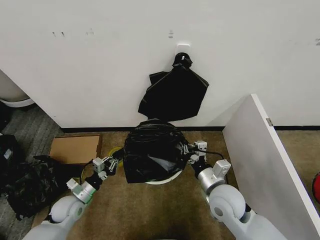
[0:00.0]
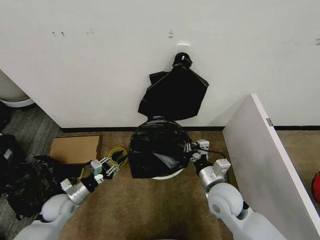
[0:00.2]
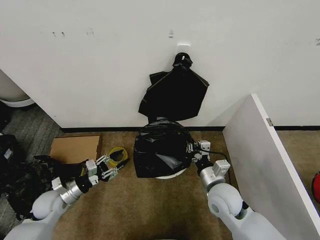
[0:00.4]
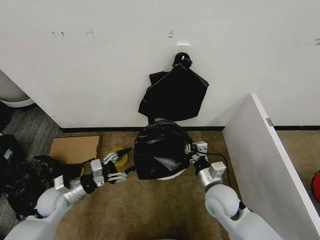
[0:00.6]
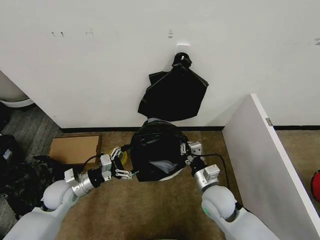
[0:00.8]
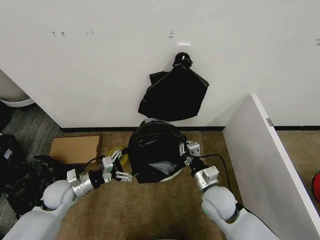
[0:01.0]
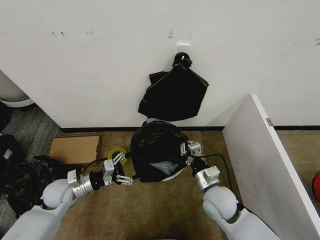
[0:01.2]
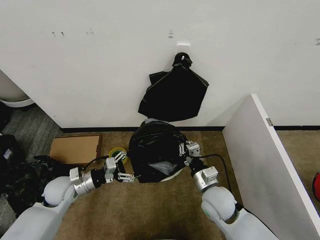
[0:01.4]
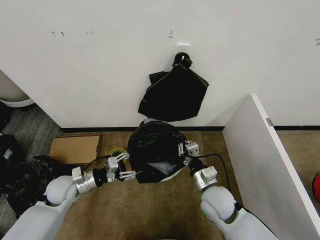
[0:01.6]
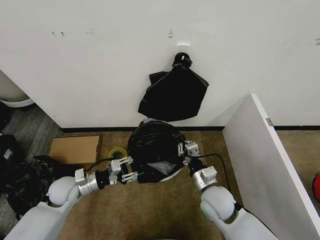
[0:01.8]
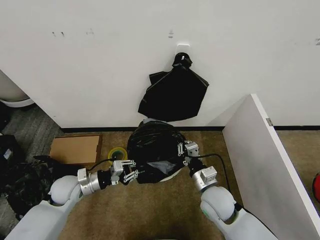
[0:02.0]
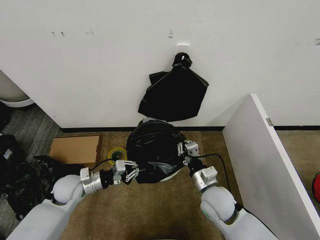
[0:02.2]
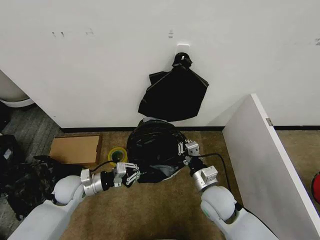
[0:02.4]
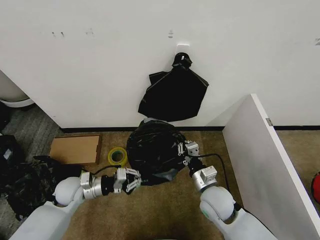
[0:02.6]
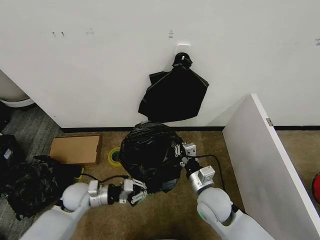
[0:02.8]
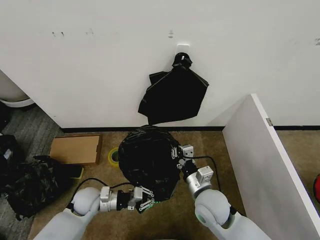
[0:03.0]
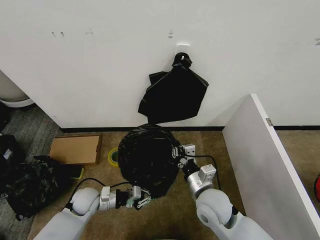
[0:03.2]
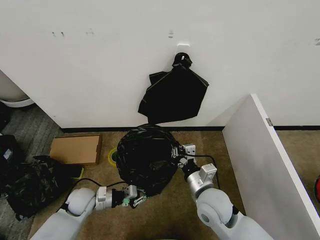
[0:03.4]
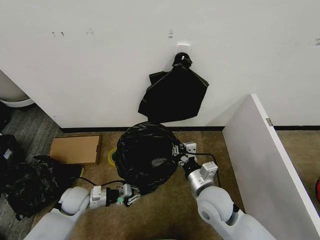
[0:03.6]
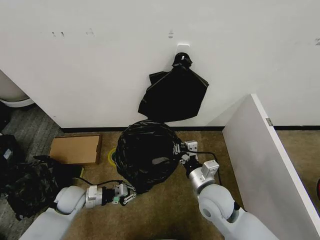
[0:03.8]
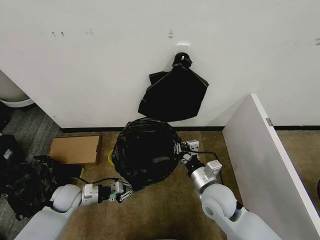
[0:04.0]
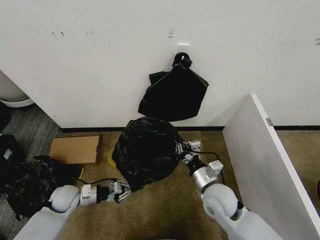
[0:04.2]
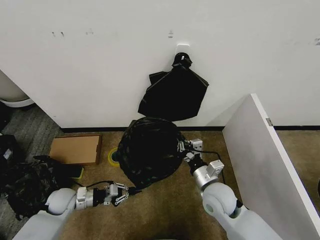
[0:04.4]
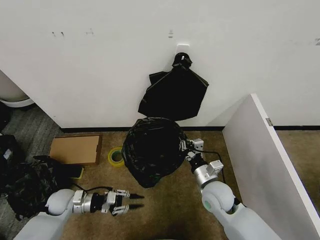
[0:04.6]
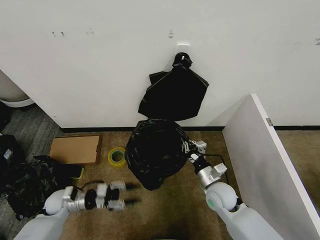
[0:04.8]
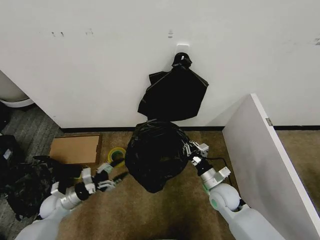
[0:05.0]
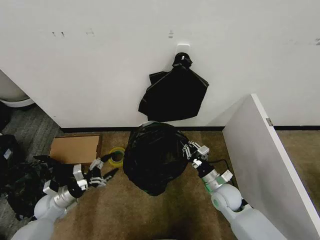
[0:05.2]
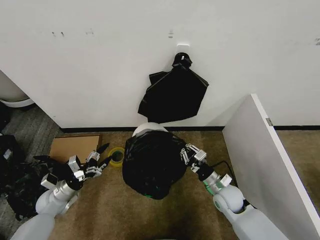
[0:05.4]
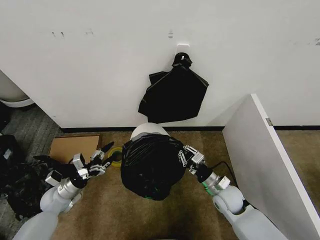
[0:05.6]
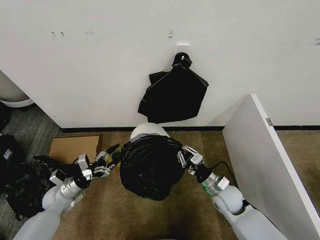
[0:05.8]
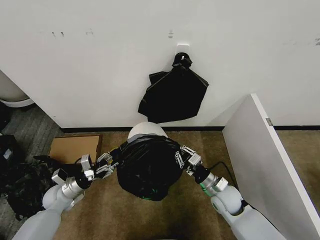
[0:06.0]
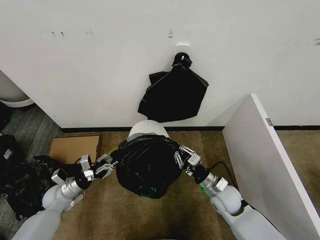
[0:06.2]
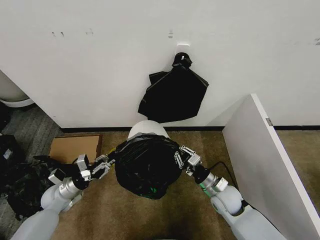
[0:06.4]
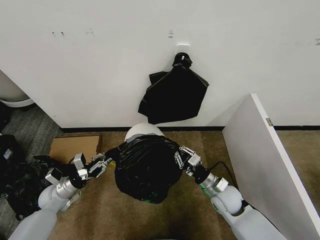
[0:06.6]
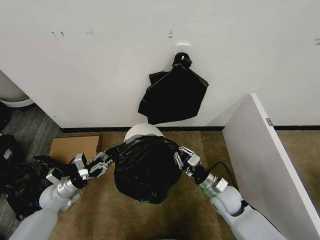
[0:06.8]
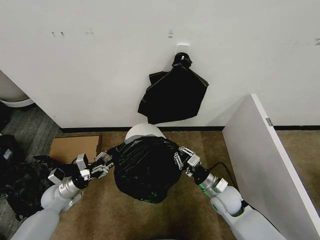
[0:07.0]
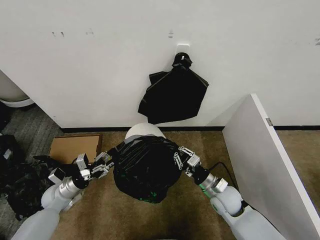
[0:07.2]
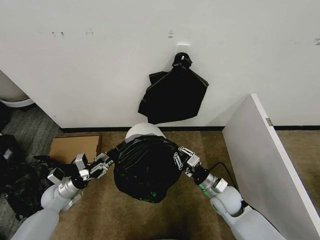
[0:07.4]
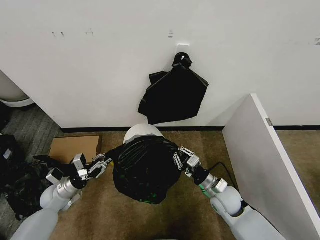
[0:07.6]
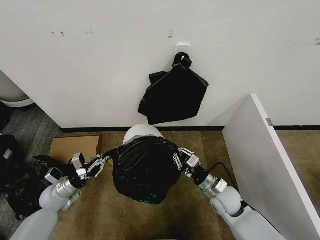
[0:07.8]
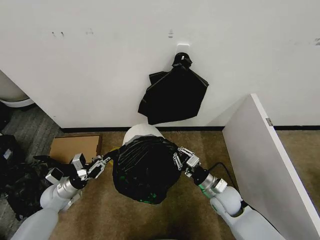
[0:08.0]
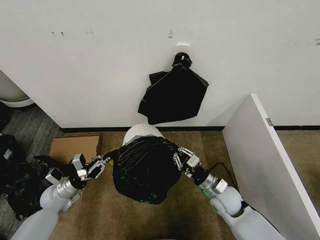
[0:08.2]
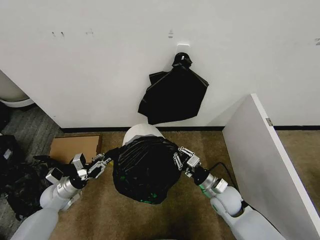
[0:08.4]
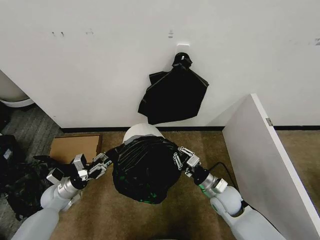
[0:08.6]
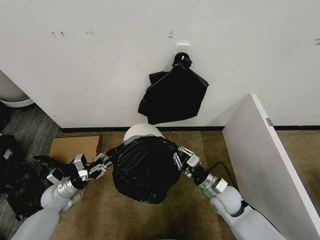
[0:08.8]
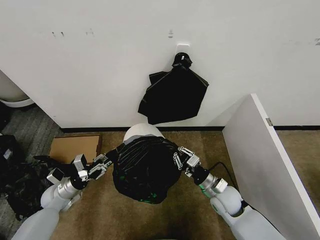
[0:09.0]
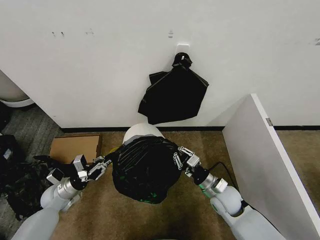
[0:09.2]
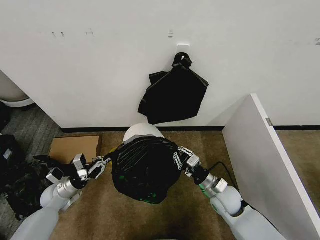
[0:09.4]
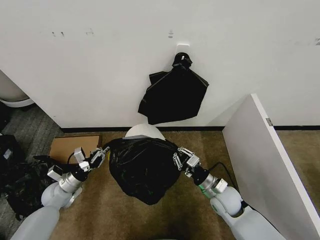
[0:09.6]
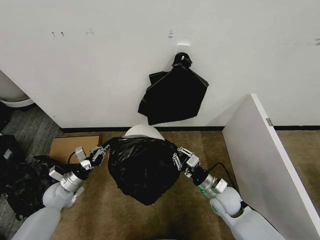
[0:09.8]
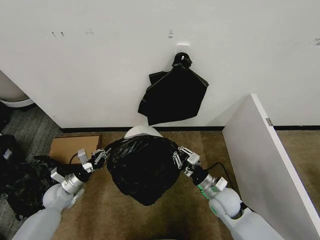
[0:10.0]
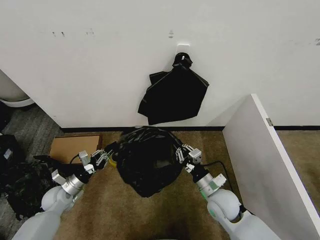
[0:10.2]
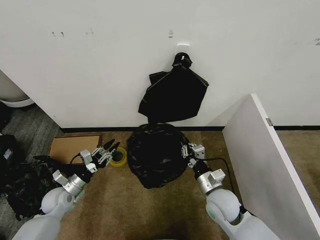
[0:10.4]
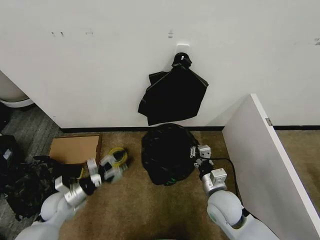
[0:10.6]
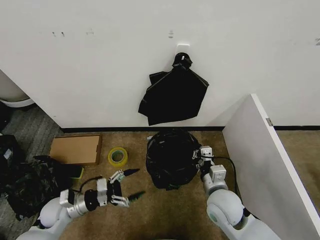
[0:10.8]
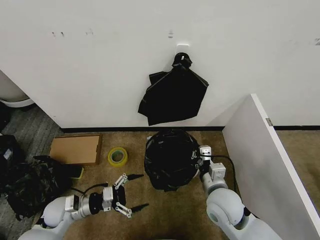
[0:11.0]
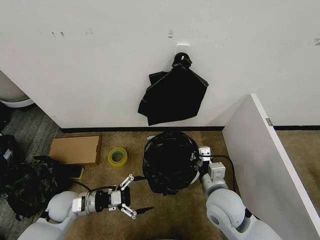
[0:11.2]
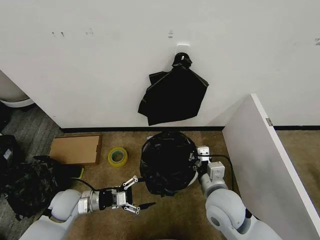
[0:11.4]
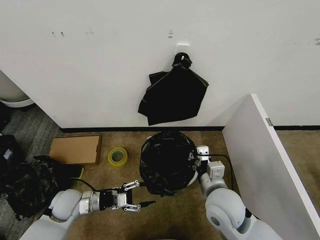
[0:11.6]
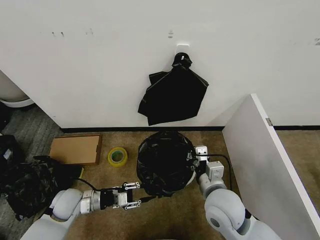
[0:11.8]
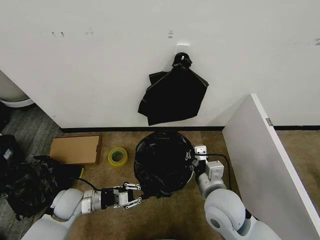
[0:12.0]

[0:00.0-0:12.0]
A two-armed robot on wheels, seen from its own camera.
Task of the whole recording: Place the garbage bag over the trash bin.
0:00.0 to 0:01.6: The left gripper goes roughly 10 cm upward, and opens its fingers.
0:01.6 to 0:03.0: The left gripper heads downward and to the right, covering roughly 10 cm, and closes its fingers.
0:03.0 to 0:04.4: The left gripper heads to the left, covering approximately 10 cm.
0:04.4 to 0:06.0: The left gripper opens up. The right gripper travels downward and to the right by roughly 10 cm.
0:06.0 to 0:07.6: The left gripper closes up.
0:07.6 to 0:09.0: Neither gripper changes place.
0:09.0 to 0:10.4: The right gripper changes place by about 5 cm.
0:10.4 to 0:12.0: The right gripper shifts some 10 cm upward. Meanwhile the left gripper travels to the right by some 5 cm, and opens and closes again.

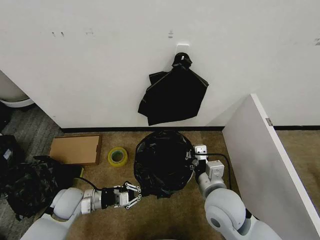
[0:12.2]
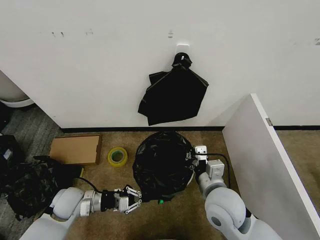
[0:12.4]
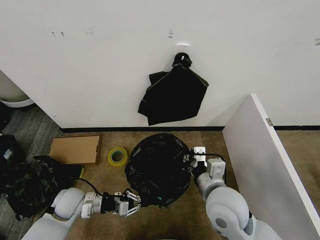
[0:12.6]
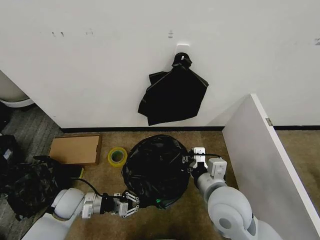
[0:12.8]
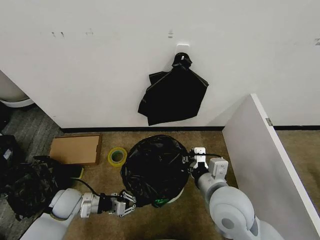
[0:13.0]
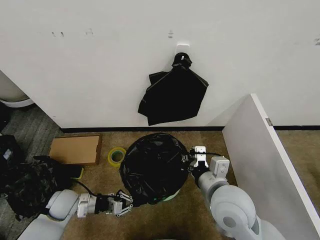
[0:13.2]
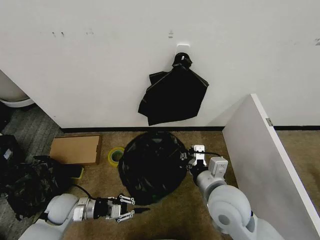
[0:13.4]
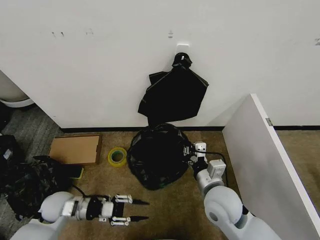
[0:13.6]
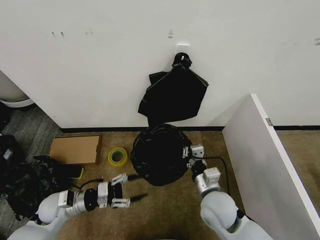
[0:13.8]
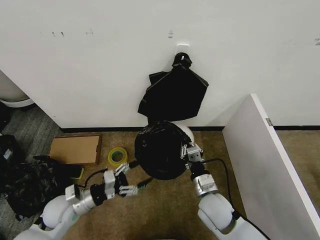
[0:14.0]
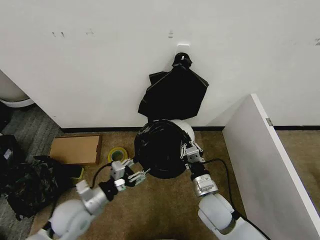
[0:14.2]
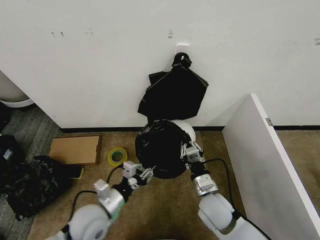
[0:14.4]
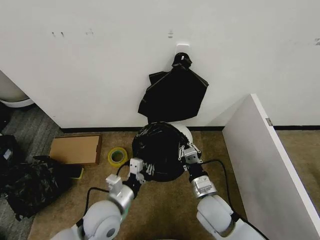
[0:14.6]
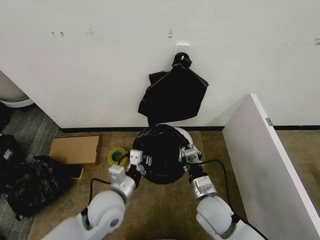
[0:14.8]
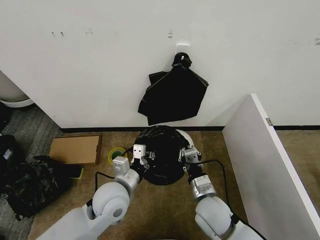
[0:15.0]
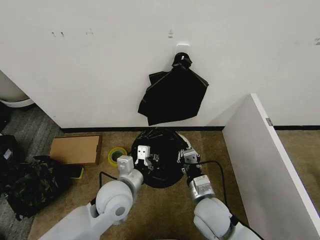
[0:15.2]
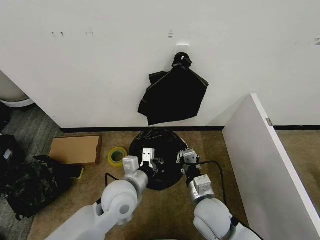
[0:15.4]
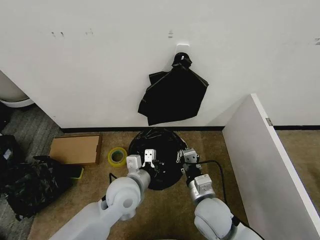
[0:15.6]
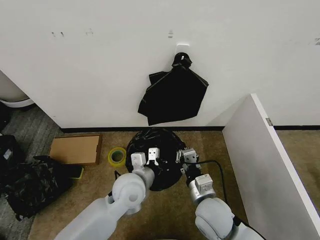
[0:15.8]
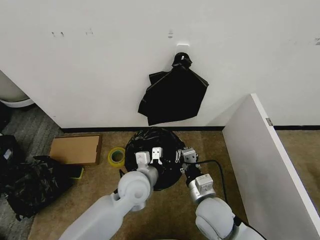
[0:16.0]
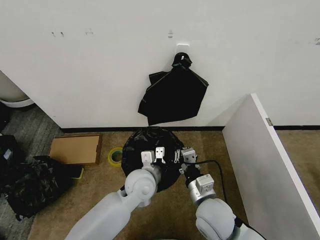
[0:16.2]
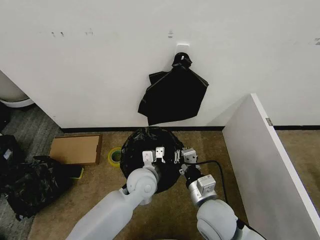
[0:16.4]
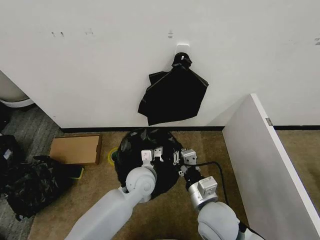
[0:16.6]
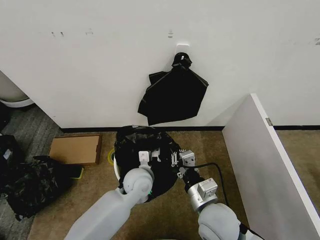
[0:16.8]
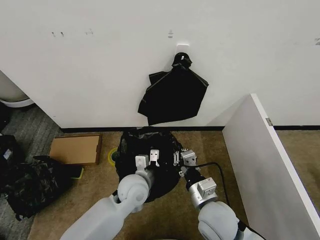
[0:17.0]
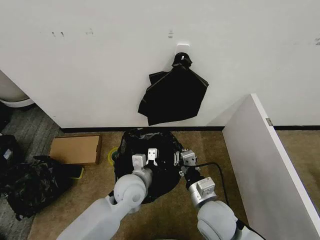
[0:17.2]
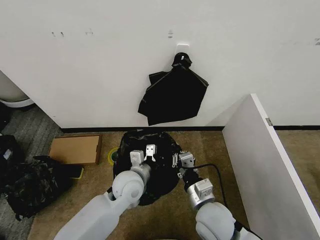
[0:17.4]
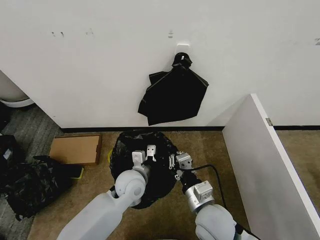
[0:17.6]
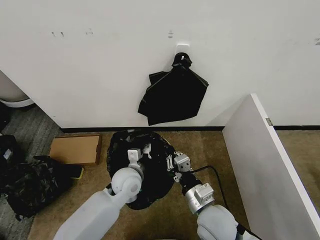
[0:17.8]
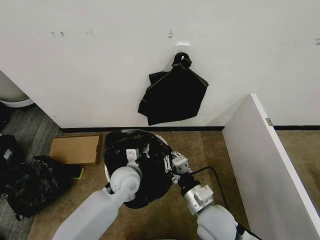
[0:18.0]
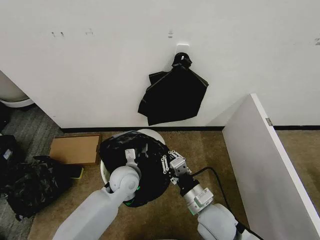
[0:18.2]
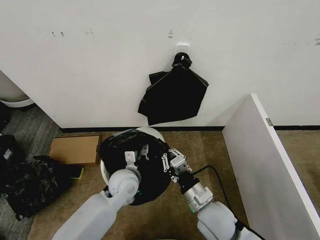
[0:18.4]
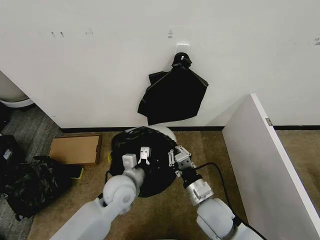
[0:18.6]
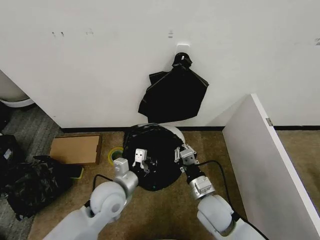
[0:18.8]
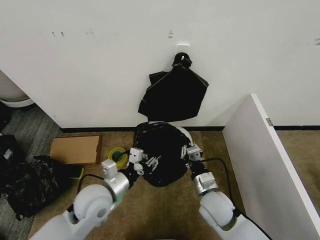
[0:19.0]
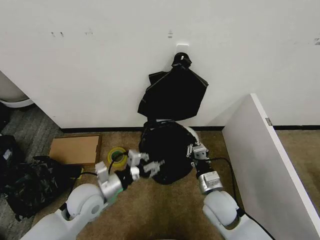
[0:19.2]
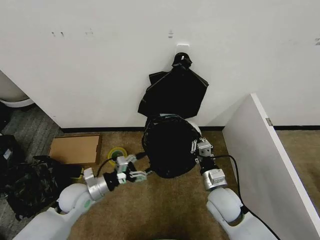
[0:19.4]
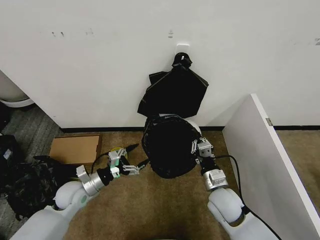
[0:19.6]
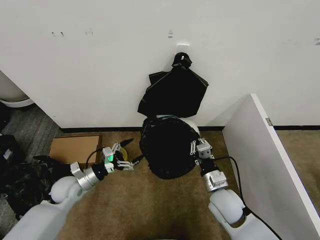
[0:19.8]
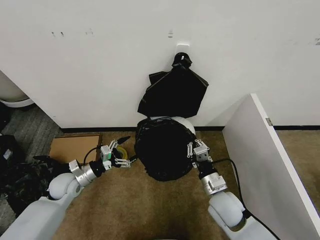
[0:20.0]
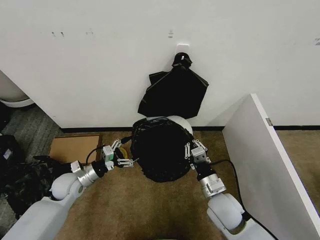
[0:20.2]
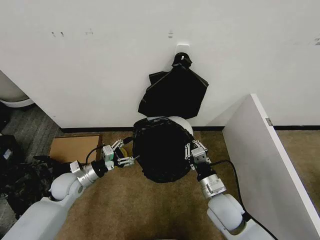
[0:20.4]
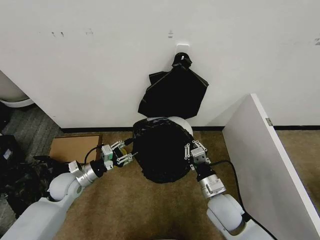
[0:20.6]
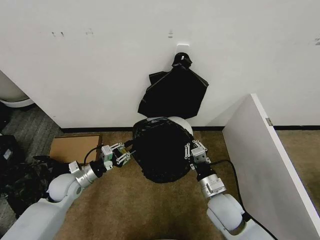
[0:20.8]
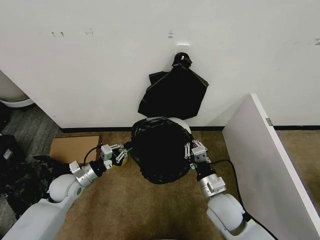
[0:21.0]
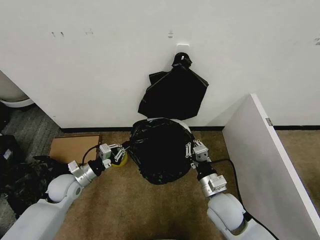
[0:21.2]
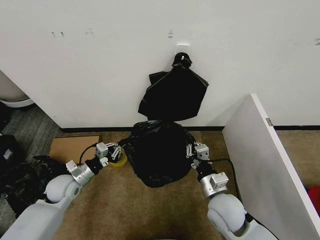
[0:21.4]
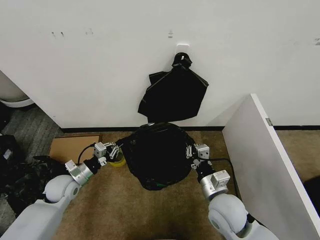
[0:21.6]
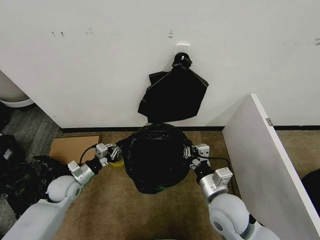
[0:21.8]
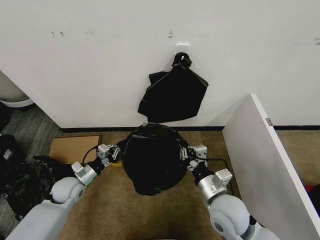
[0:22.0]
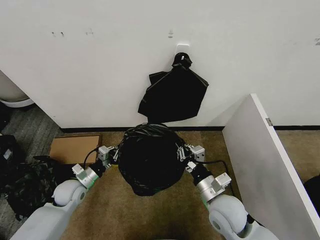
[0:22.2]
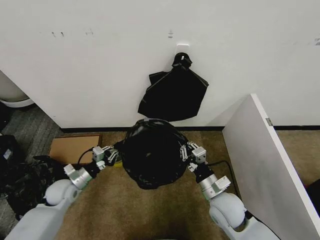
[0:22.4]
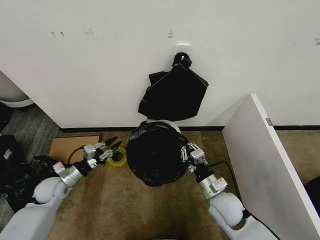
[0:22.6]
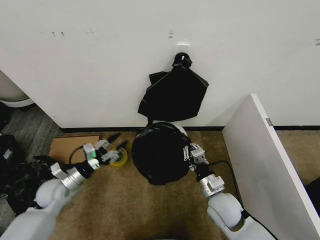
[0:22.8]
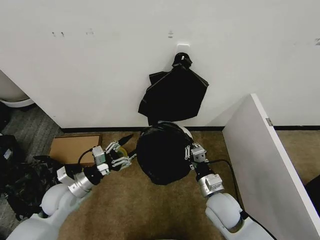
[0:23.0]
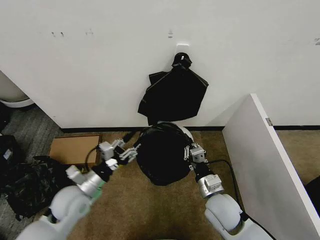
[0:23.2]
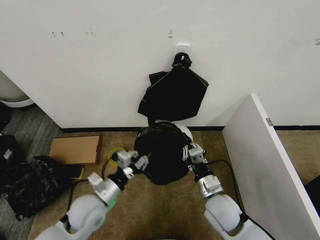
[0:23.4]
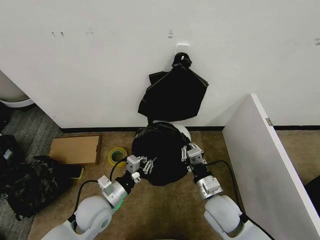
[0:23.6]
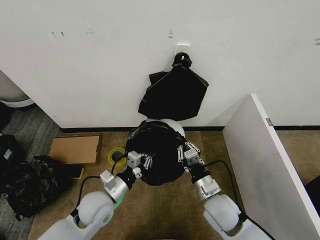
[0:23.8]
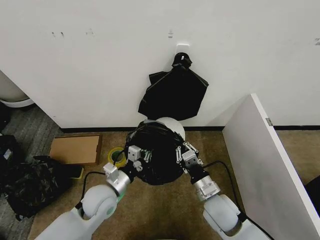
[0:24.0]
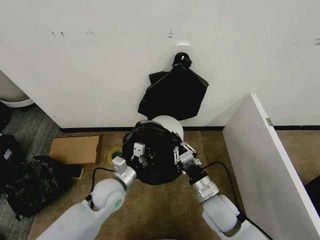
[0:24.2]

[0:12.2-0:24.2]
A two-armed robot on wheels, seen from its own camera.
Task of the whole recording: Place the garbage bag over the trash bin.
0:12.2 to 0:13.8: The left gripper opens up. The right gripper moves downward, about 5 cm.
0:13.8 to 0:15.2: The left gripper moves to the right and upward, about 25 cm, and closes.
0:15.2 to 0:16.6: The left gripper heads forward and to the right, covering roughly 10 cm.
0:16.6 to 0:18.2: The left gripper travels to the left by some 5 cm.
0:18.2 to 0:19.8: The right gripper heads forward and to the right, covering some 10 cm, while the left gripper is displaced to the left by some 20 cm, and opens up.
0:19.8 to 0:21.2: The left gripper closes.
0:21.2 to 0:22.6: The left gripper heads to the left, covering some 5 cm, and opens its fingers.
0:22.6 to 0:24.2: The left gripper goes about 25 cm to the right, and closes its fingers.
